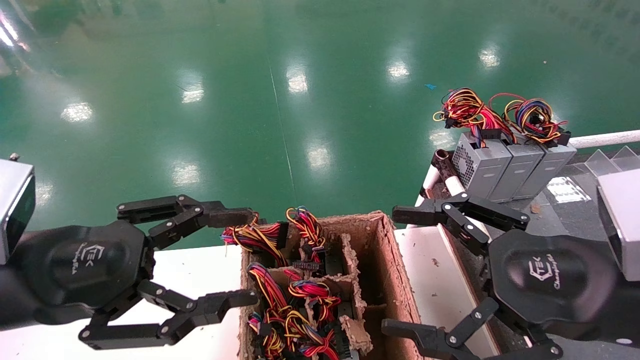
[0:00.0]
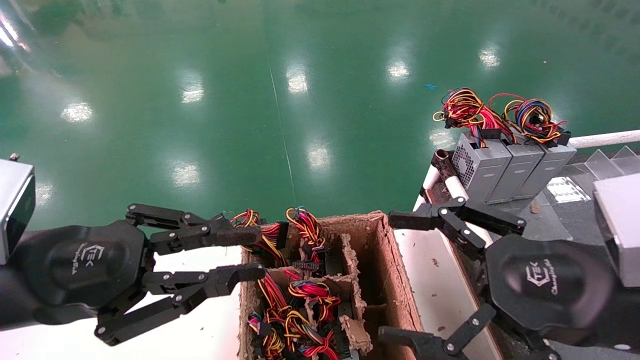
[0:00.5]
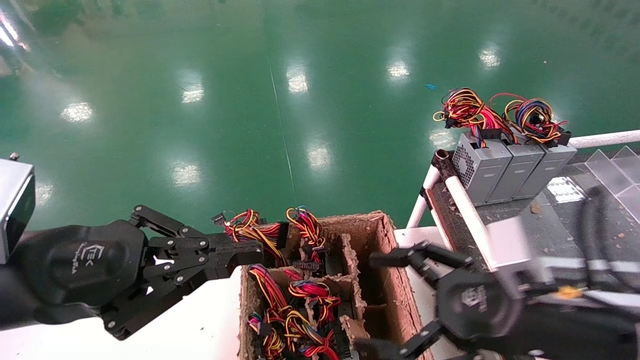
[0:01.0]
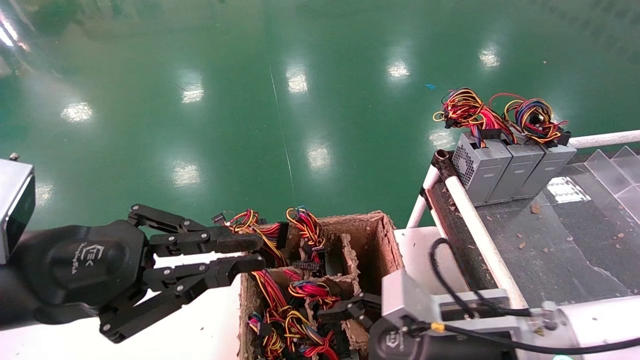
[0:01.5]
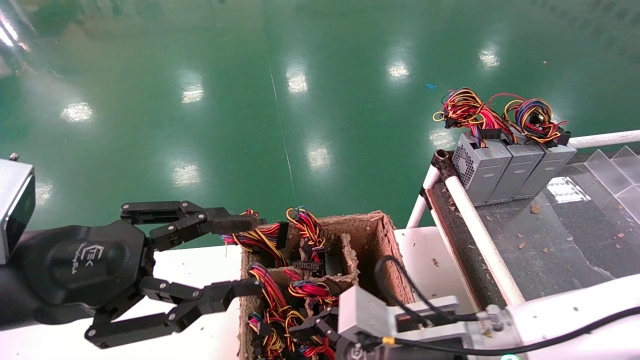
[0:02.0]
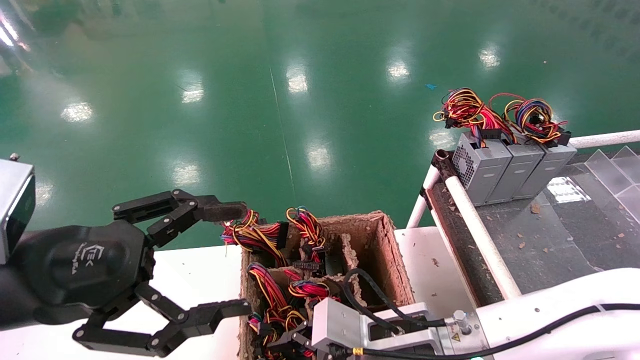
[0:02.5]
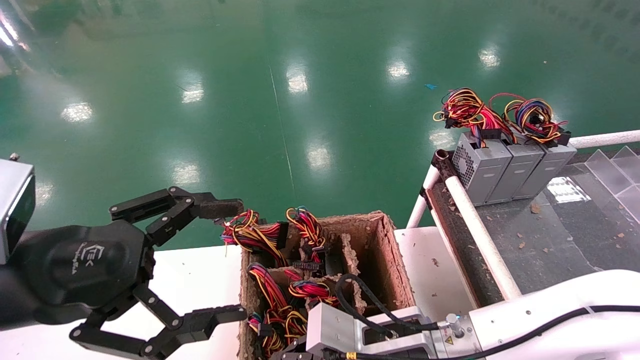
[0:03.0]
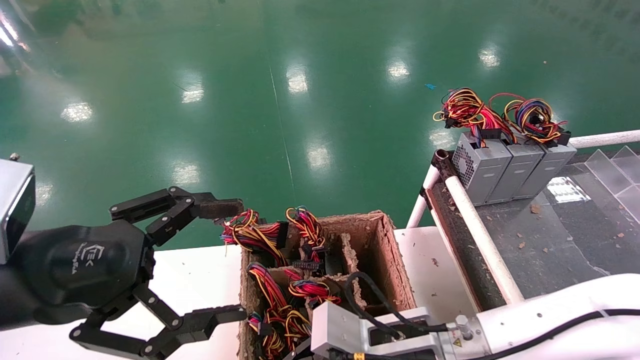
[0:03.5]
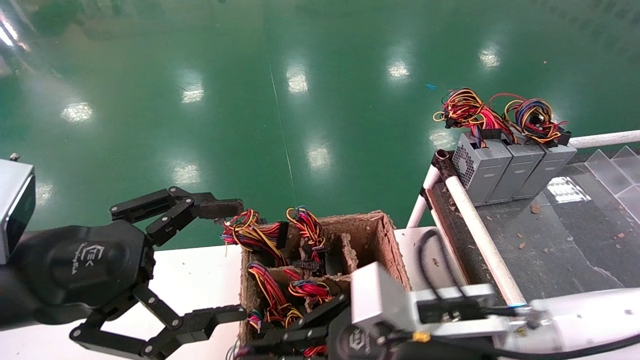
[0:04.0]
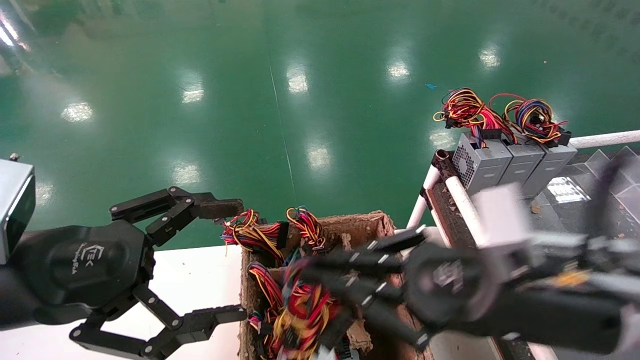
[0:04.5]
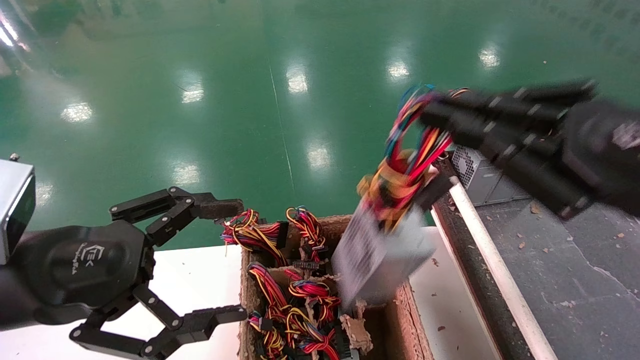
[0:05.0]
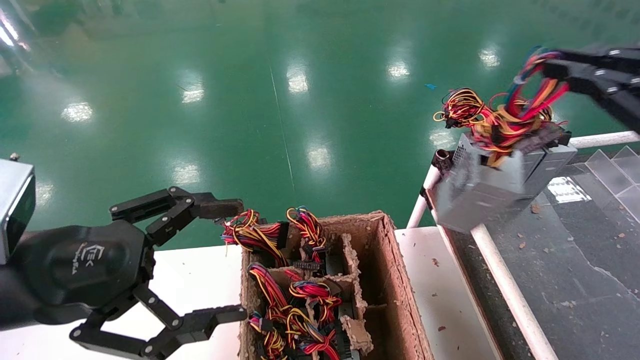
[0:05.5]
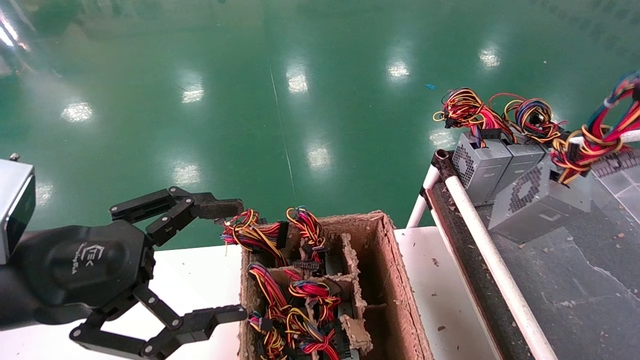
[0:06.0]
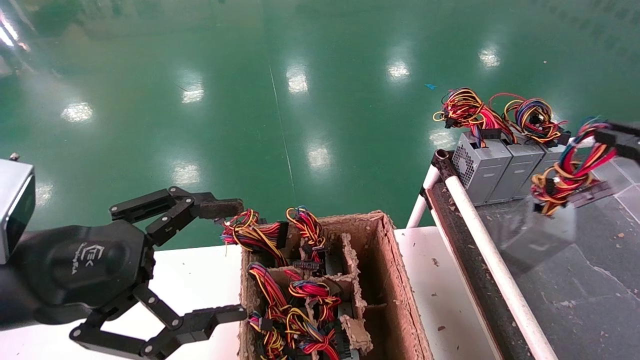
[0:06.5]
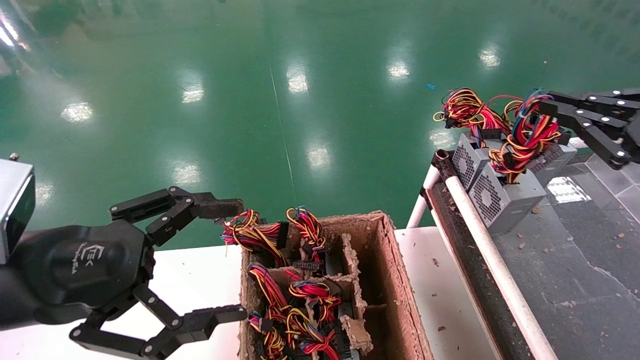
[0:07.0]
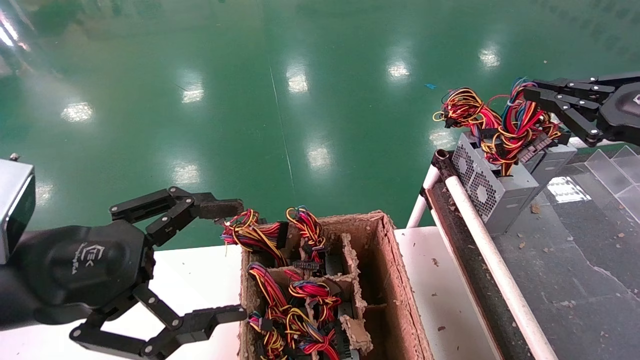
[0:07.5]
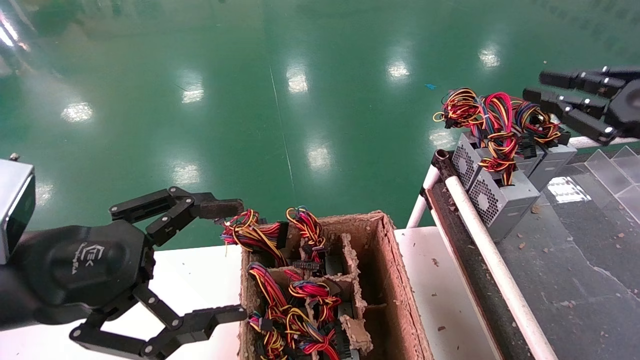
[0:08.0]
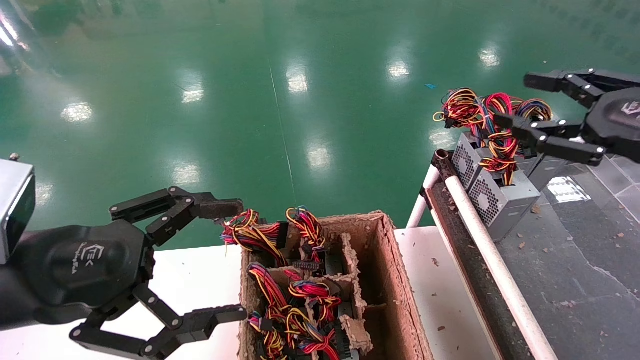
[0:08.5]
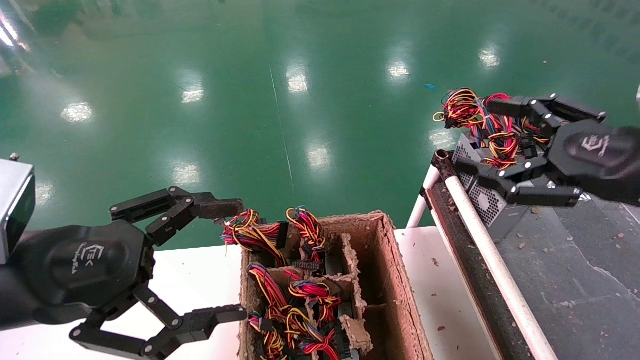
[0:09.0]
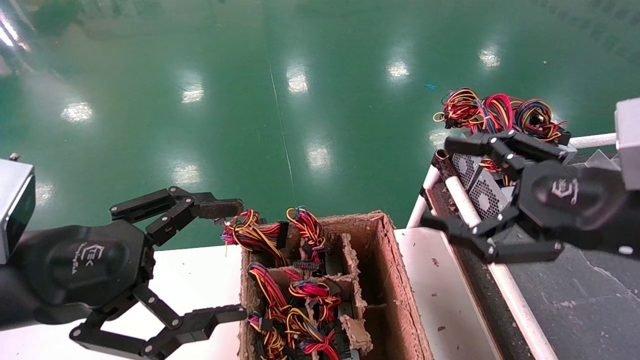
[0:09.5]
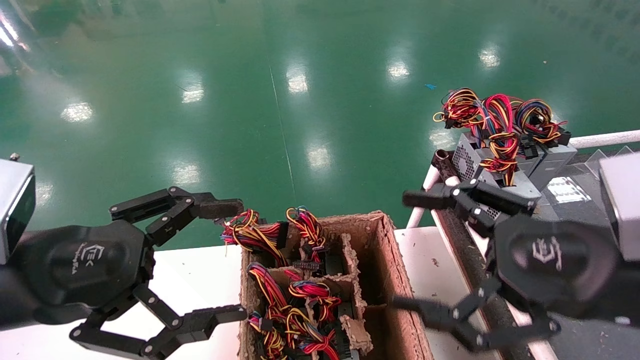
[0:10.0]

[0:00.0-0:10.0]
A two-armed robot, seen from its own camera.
Step, 0:01.0 to 0:03.5: Grab and lift the power supply from the large box.
Step, 0:04.0 to 0:08.0: Place the power supply on the operating table.
0:00.0 to 0:02.0: The right gripper heads downward, to the left and forward, covering approximately 20 cm.
0:02.0 to 0:04.0: The left gripper opens up, while the right gripper moves about 5 cm, and closes.
0:04.0 to 0:06.0: The right gripper heads to the right and upward, covering approximately 35 cm.
0:06.0 to 0:08.0: The right gripper is displaced forward by approximately 10 cm.
0:08.0 to 0:10.0: The right gripper travels to the left, downward and backward by about 20 cm, and opens its fingers.

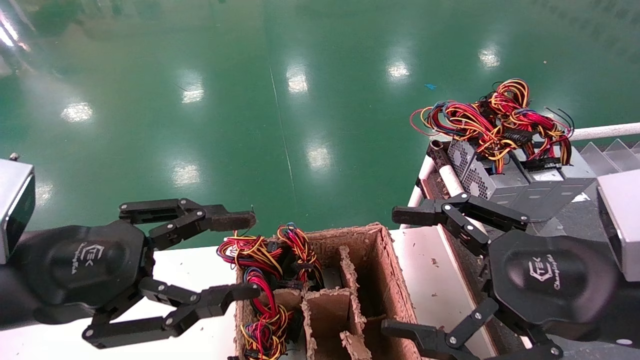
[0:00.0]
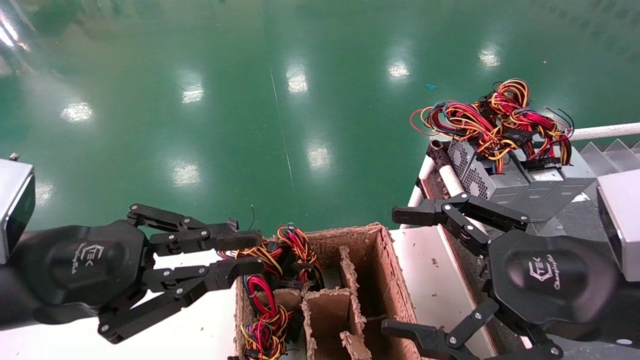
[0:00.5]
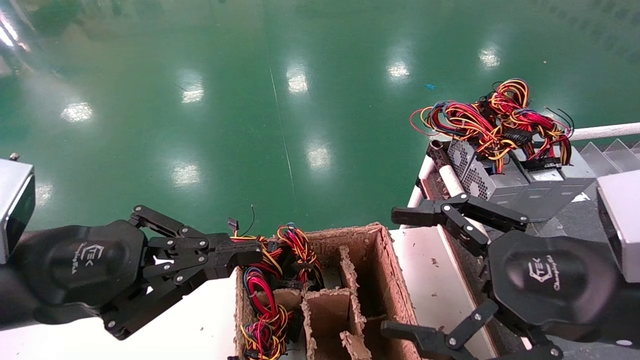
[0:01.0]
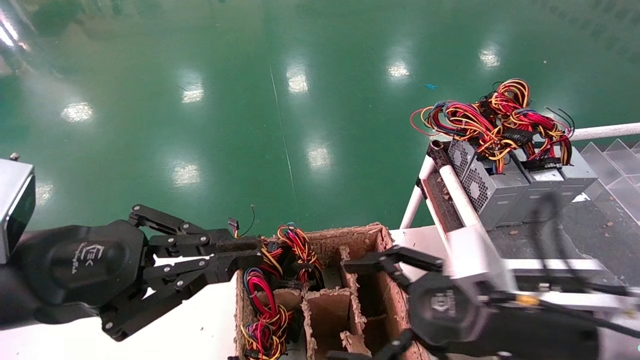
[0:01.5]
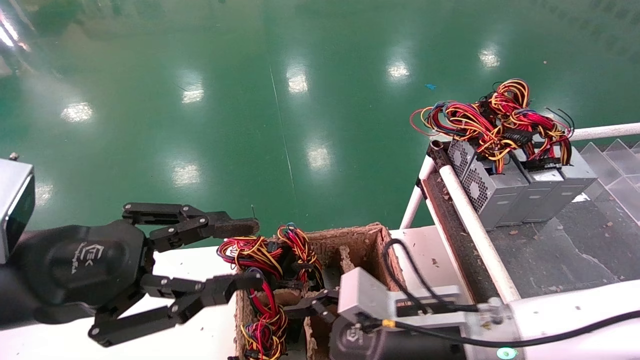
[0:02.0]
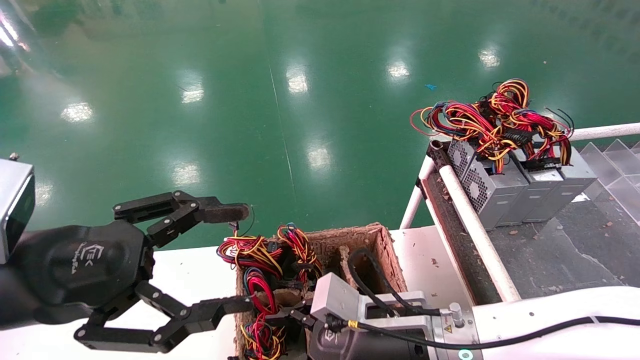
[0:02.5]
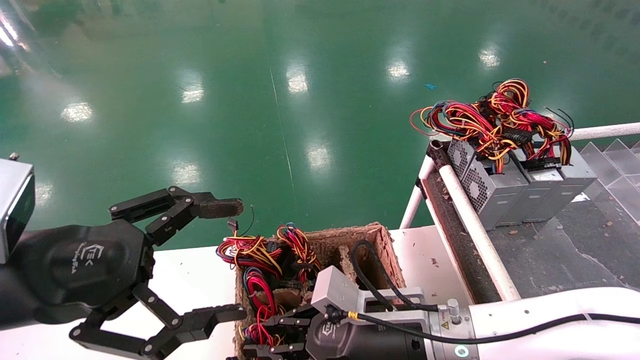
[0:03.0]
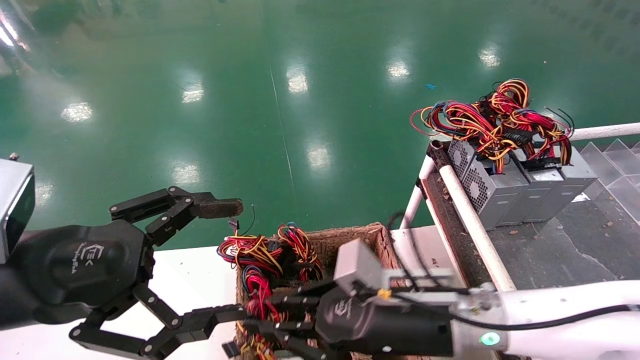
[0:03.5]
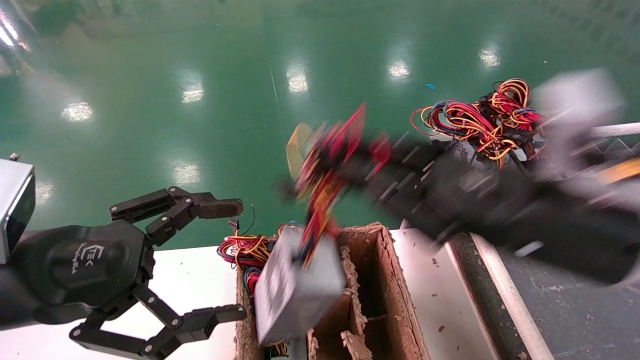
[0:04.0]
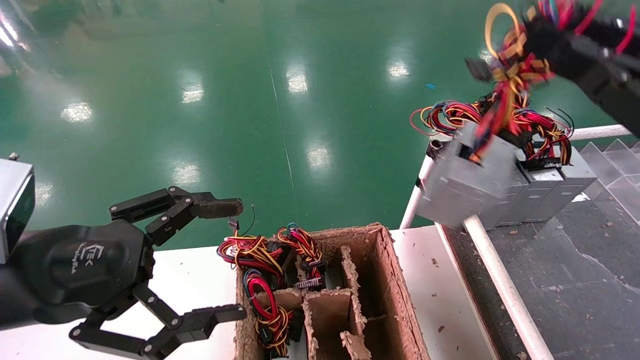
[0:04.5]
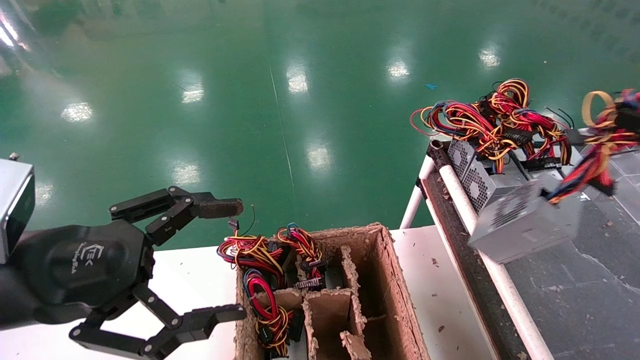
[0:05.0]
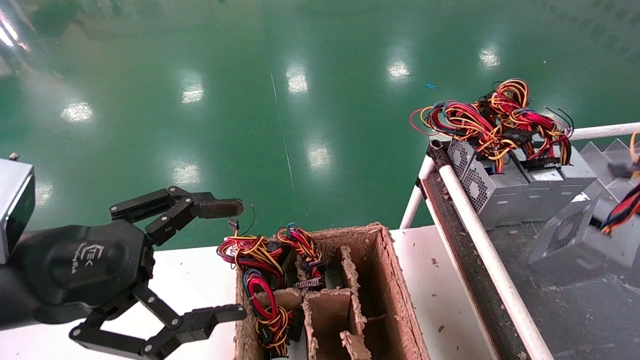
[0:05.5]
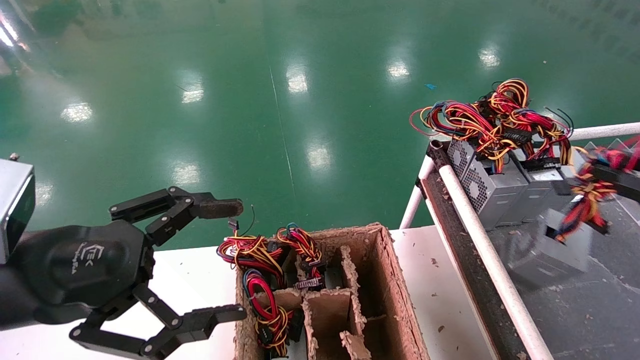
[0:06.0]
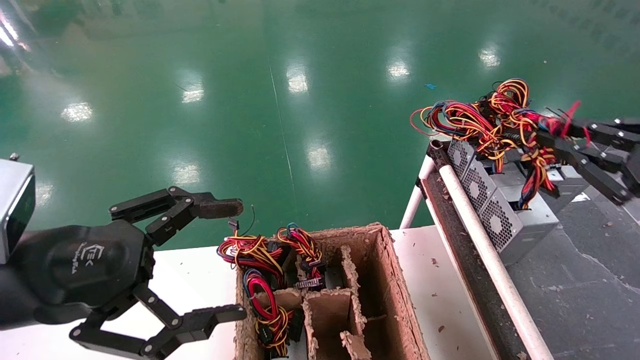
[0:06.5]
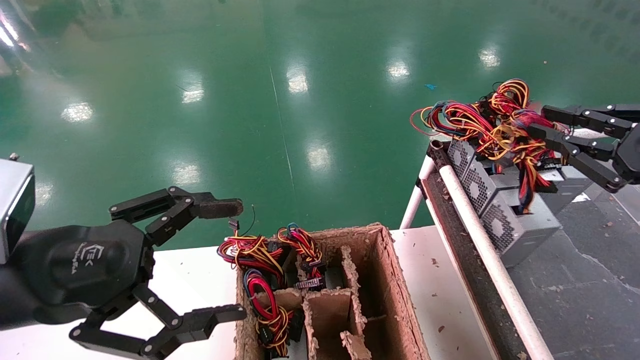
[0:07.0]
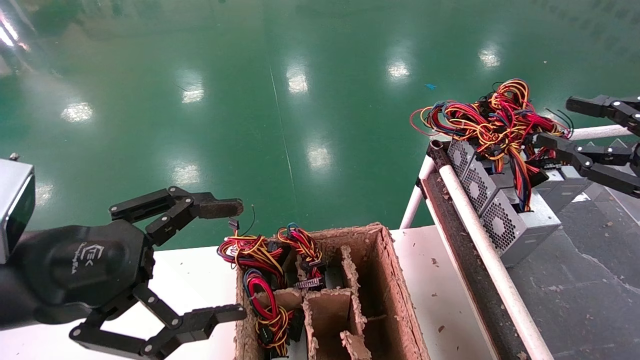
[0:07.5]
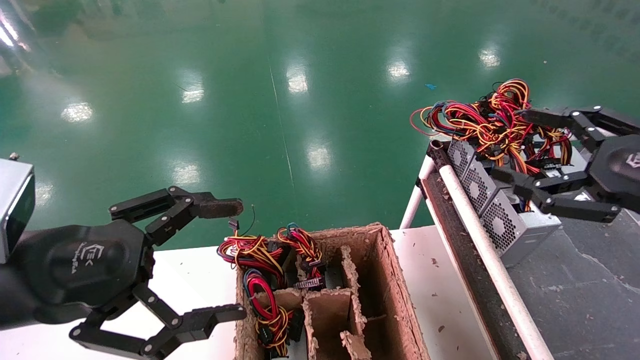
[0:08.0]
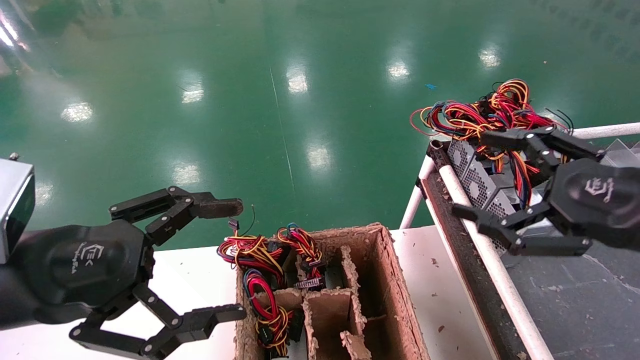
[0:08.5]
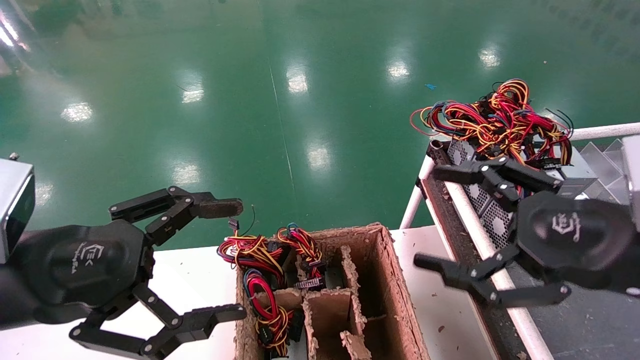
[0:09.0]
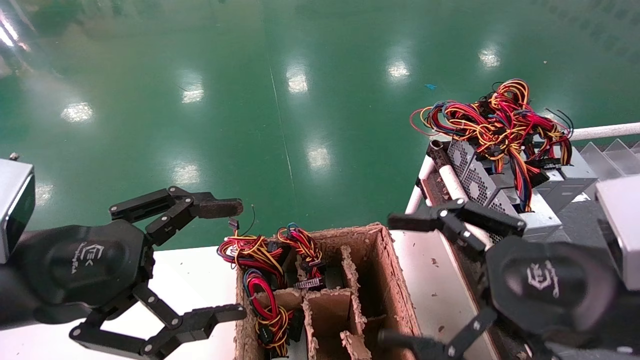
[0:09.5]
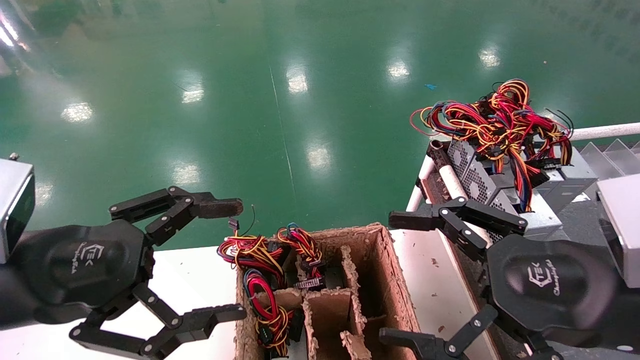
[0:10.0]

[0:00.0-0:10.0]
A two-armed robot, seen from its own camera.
Step, 0:02.0 to 0:04.5: Grab and lift the power supply from the large box.
Step, 0:05.0 to 0:08.5: Place the power supply on the operating table.
0:00.0 to 0:02.0: The right gripper heads to the left, downward and forward, covering some 20 cm.
0:02.0 to 0:04.0: The left gripper opens, while the right gripper heads upward and to the right, covering approximately 15 cm, and closes its fingers.
0:04.0 to 0:06.0: The right gripper goes some 25 cm to the right.
0:06.0 to 0:08.0: The right gripper shifts about 10 cm to the left and forward, and opens its fingers.
0:08.0 to 0:10.0: The right gripper is displaced to the left and backward by approximately 15 cm.
